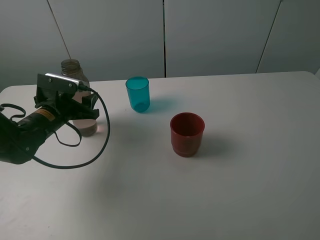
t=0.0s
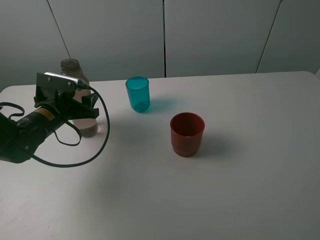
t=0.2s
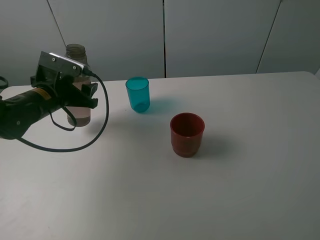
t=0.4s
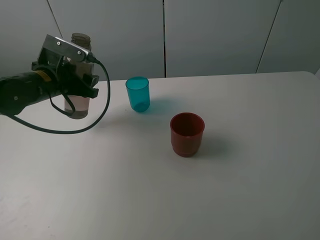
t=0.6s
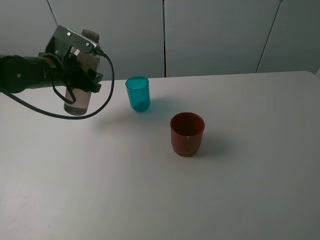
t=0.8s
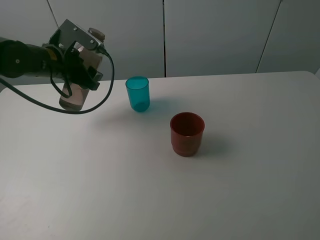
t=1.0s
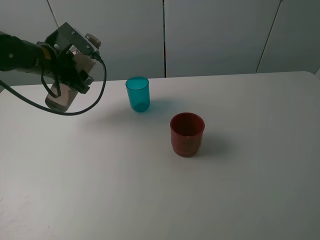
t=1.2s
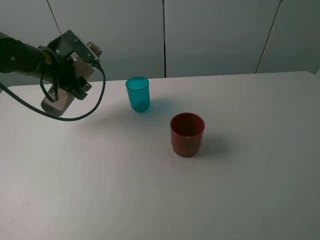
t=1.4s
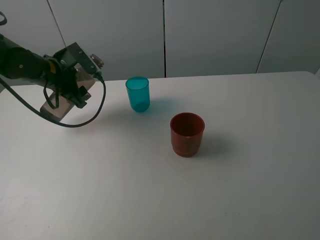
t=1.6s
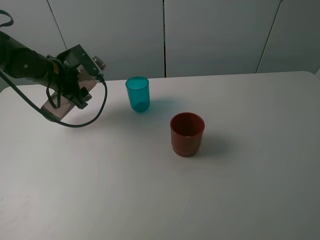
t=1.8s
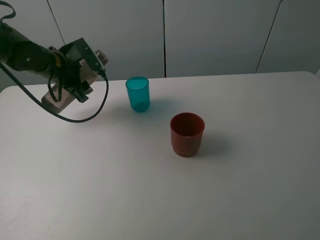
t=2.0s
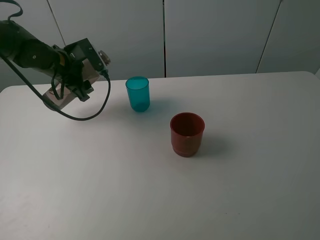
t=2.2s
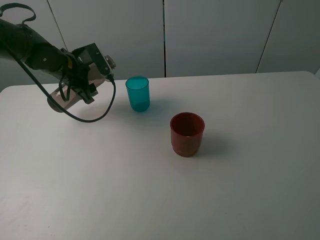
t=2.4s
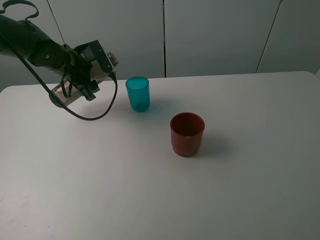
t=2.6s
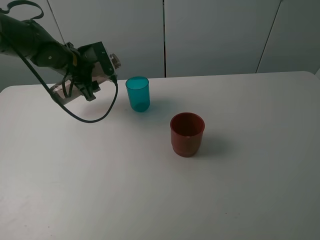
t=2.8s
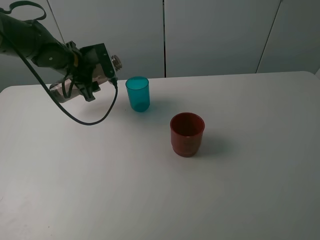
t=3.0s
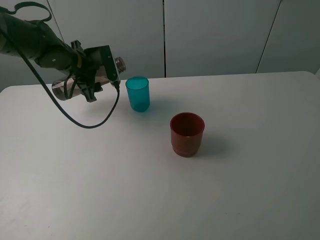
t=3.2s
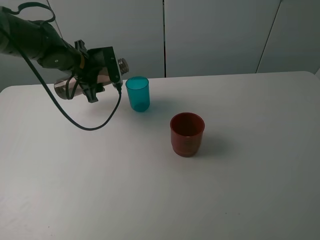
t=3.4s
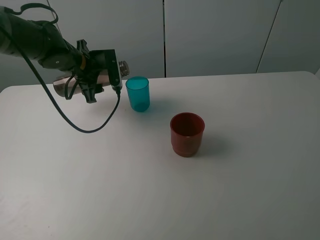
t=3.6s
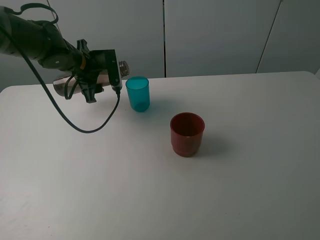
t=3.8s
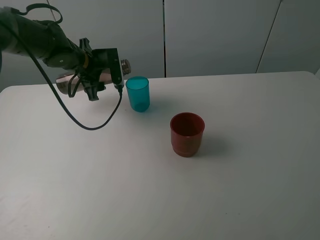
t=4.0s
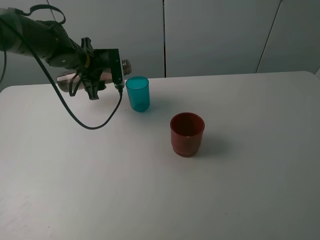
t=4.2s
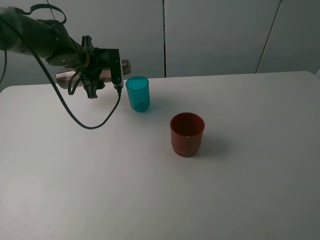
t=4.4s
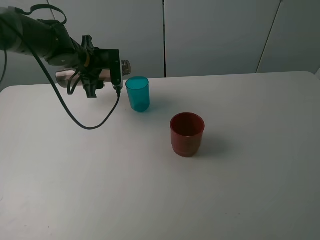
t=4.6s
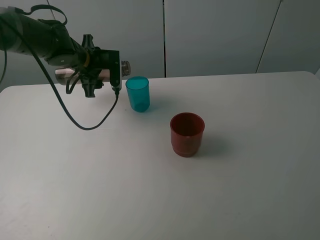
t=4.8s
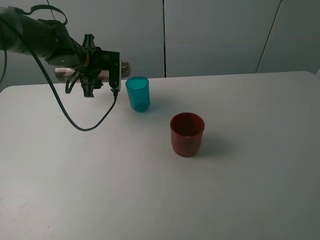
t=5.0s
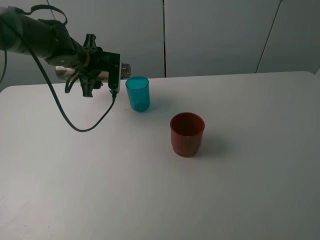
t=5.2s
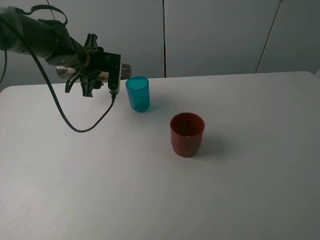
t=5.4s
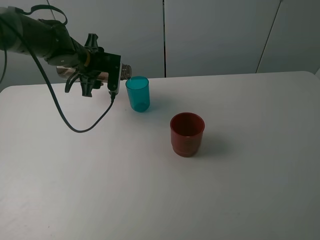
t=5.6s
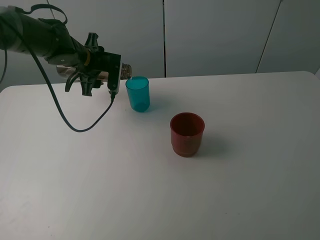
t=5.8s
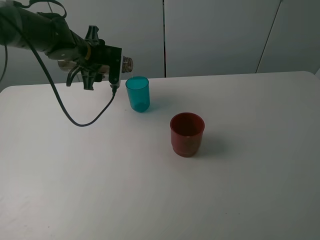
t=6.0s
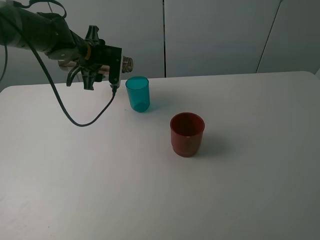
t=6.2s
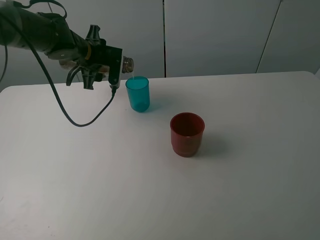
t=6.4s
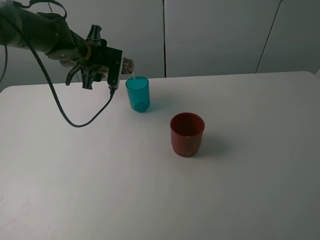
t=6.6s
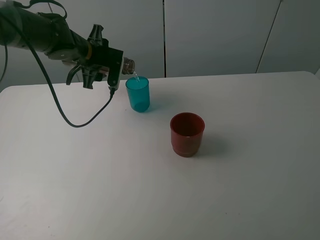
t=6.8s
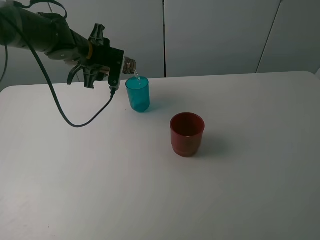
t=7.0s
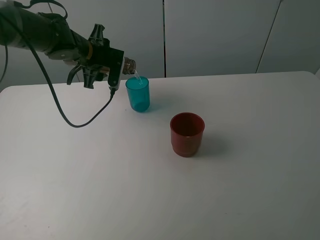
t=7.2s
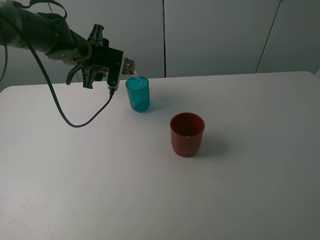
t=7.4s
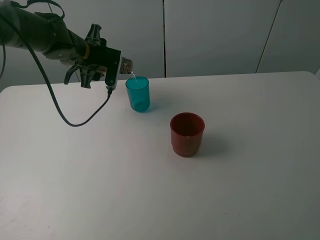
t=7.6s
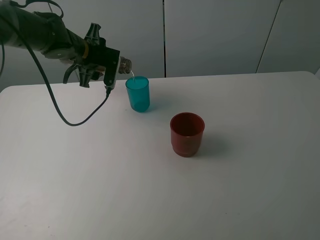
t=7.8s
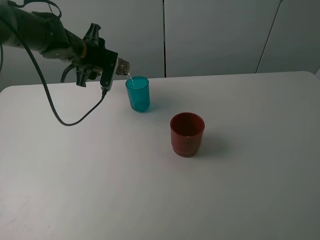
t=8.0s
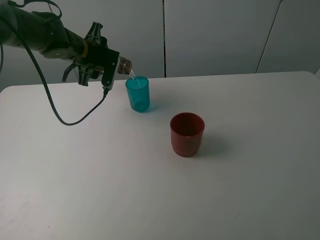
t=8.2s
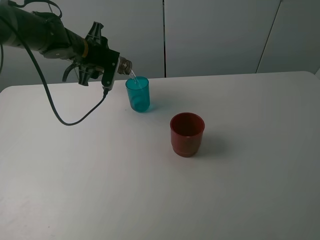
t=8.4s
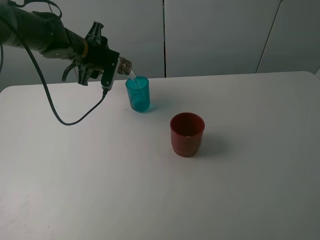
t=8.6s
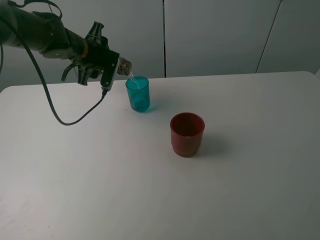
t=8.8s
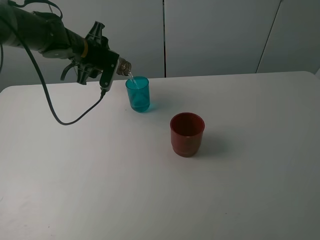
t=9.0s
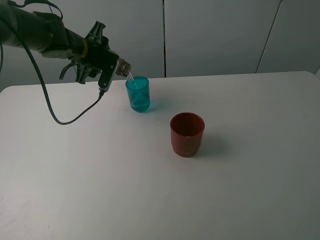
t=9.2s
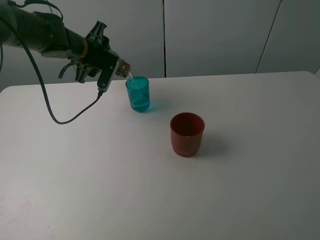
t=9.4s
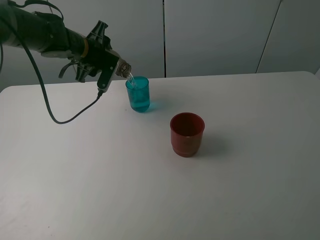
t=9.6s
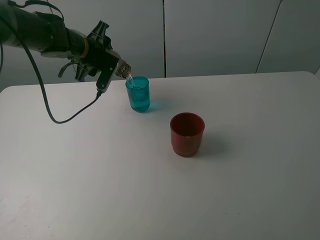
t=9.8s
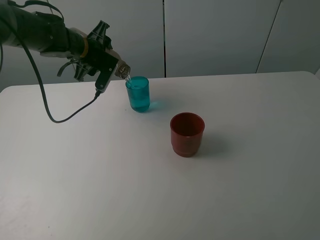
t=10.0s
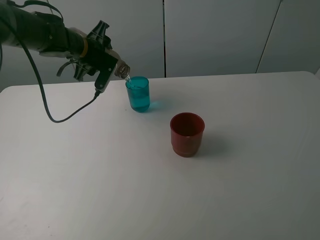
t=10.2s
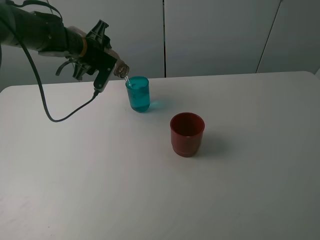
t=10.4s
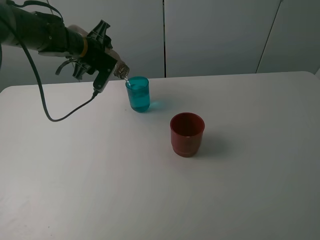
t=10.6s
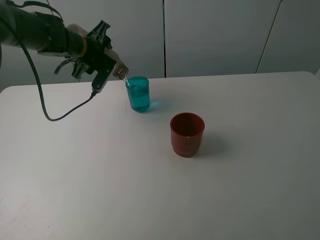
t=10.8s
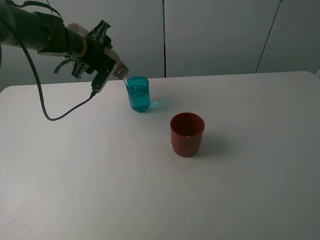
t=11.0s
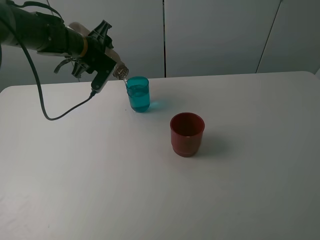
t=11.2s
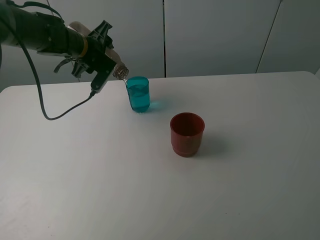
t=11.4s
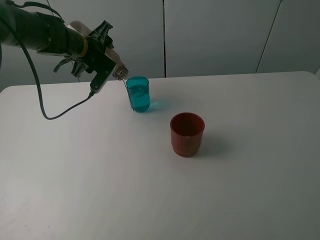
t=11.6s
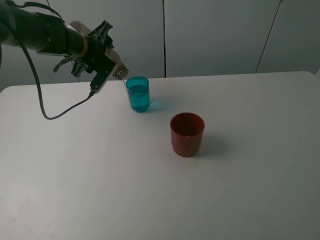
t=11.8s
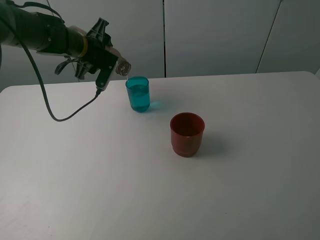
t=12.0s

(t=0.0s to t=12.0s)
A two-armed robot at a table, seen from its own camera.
Task of the whole recording: pick up the bottle and pour water into the cup, then pick up the cup containing water and pour it into another cup.
t=0.0s - t=1.6s: The left gripper moves forward and upward, roughly 10 cm.
t=1.6s - t=3.0s: The left gripper changes place by approximately 5 cm.
t=3.0s - t=4.4s: The grippers stay close to where they were, moving slightly.
t=4.4s - t=7.6s: The grippers make only small movements.
t=7.6s - t=9.0s: The grippers make only small movements.
t=9.0s - t=12.0s: The grippers move only a little.

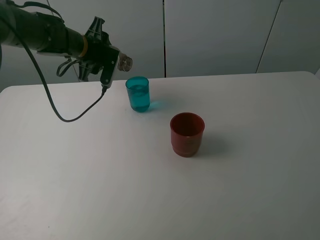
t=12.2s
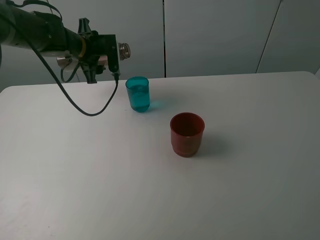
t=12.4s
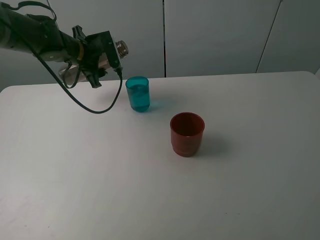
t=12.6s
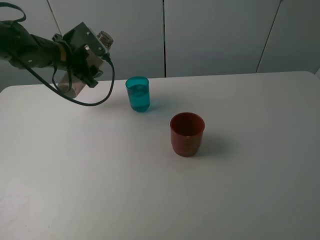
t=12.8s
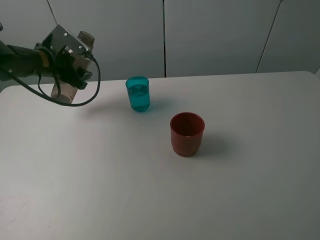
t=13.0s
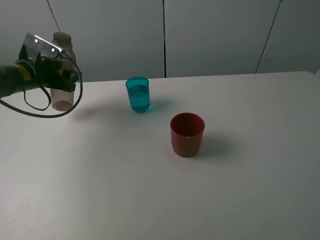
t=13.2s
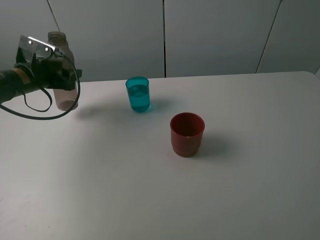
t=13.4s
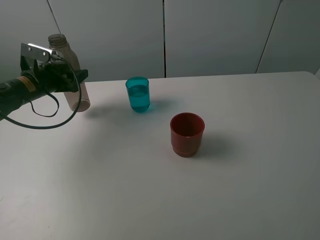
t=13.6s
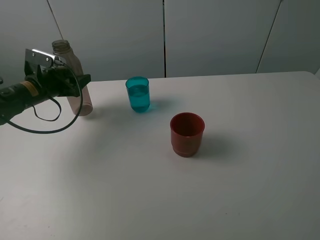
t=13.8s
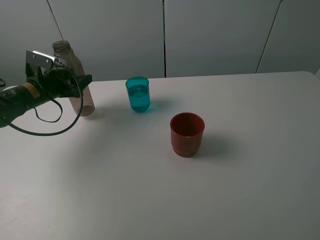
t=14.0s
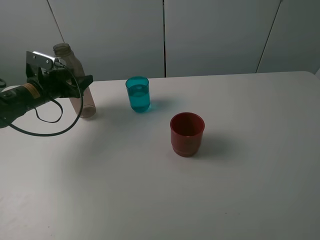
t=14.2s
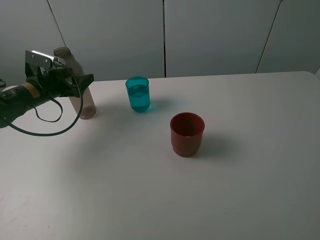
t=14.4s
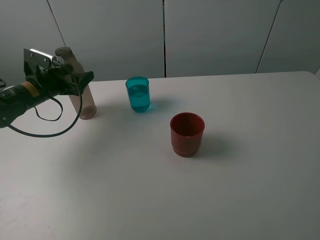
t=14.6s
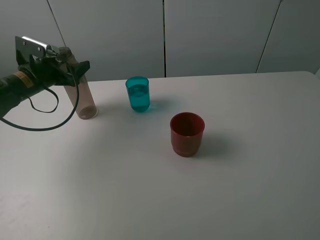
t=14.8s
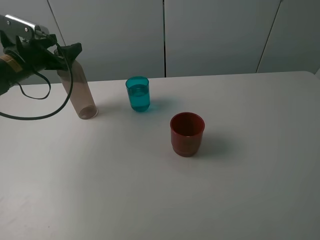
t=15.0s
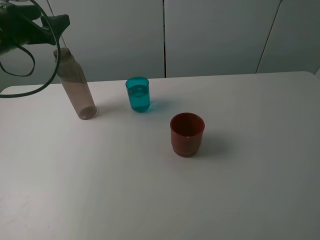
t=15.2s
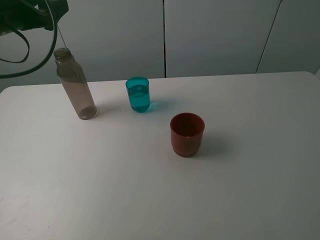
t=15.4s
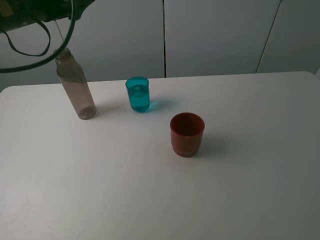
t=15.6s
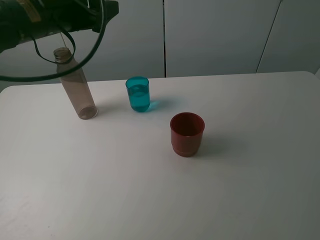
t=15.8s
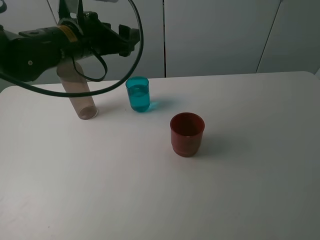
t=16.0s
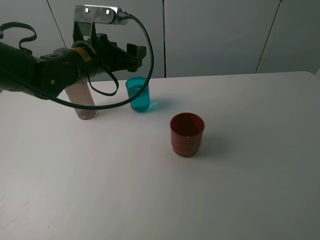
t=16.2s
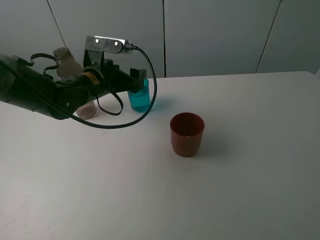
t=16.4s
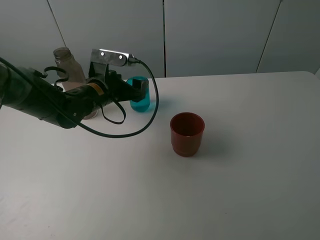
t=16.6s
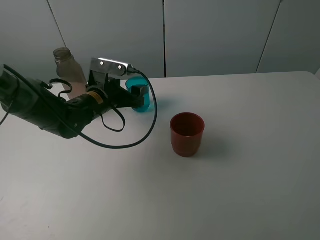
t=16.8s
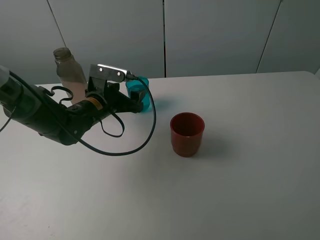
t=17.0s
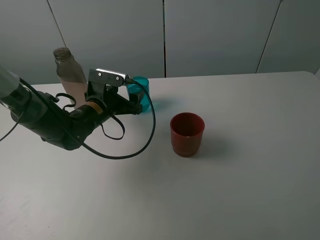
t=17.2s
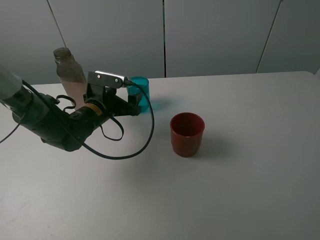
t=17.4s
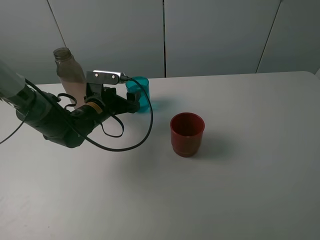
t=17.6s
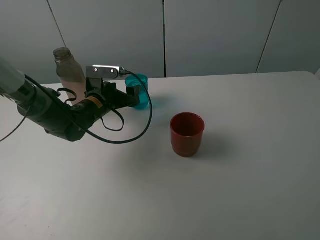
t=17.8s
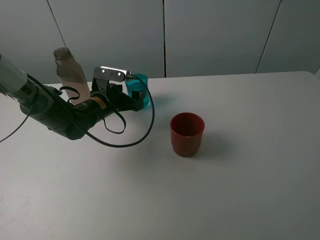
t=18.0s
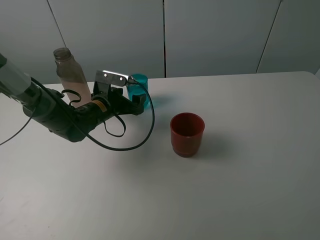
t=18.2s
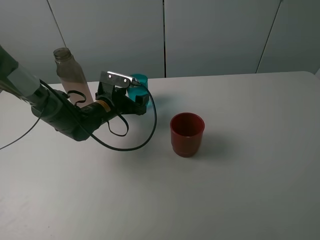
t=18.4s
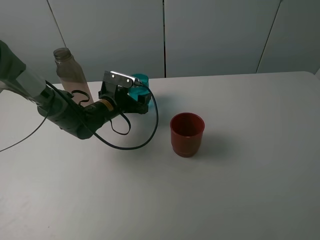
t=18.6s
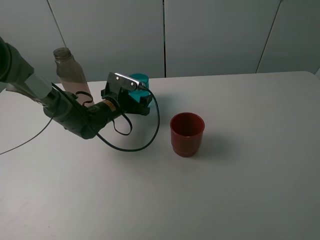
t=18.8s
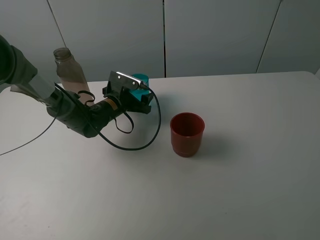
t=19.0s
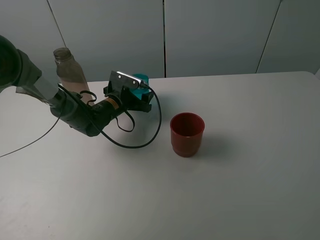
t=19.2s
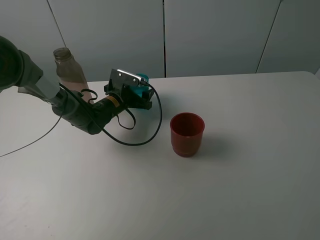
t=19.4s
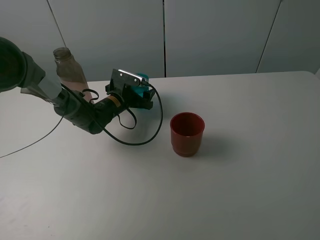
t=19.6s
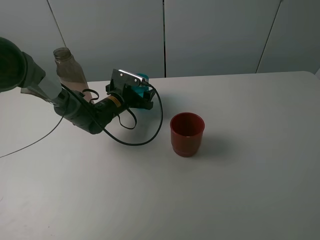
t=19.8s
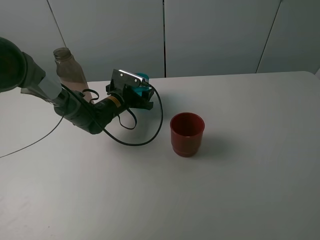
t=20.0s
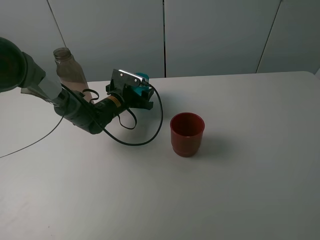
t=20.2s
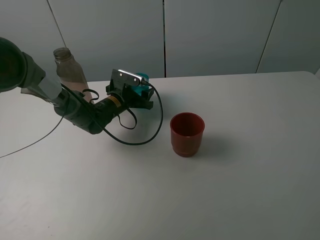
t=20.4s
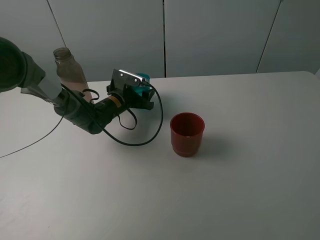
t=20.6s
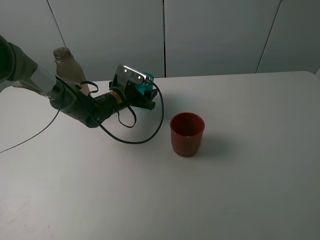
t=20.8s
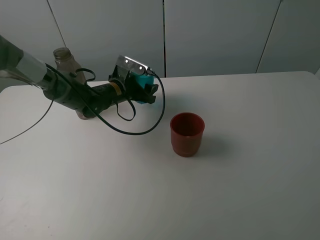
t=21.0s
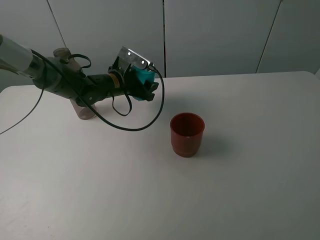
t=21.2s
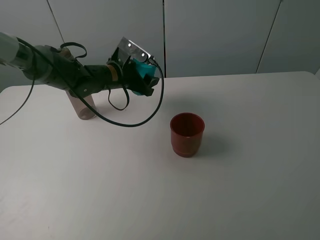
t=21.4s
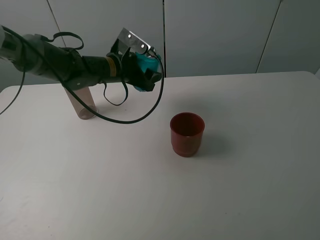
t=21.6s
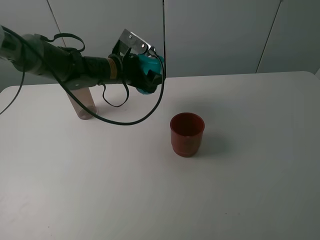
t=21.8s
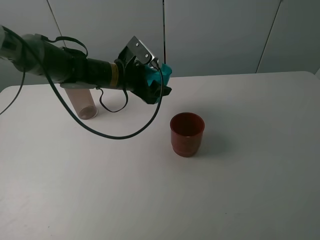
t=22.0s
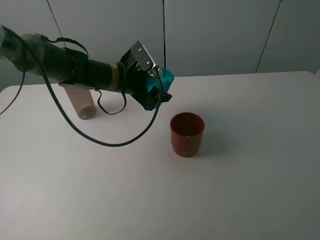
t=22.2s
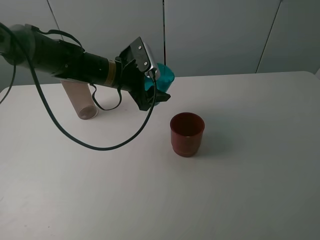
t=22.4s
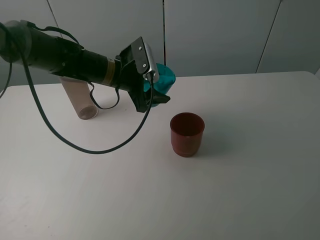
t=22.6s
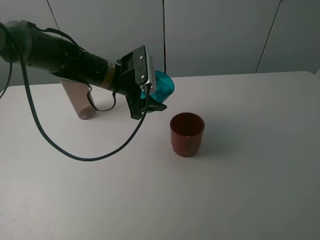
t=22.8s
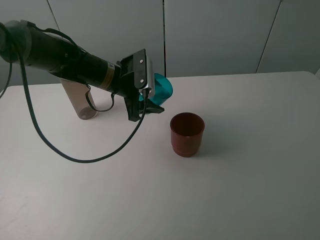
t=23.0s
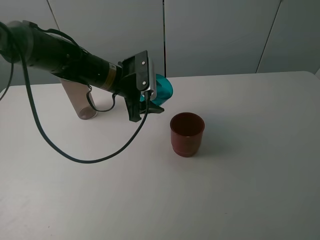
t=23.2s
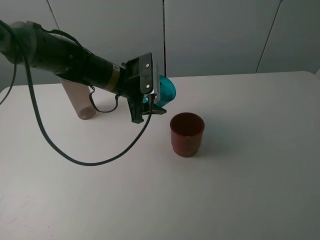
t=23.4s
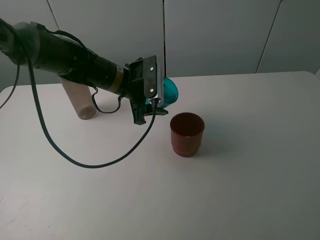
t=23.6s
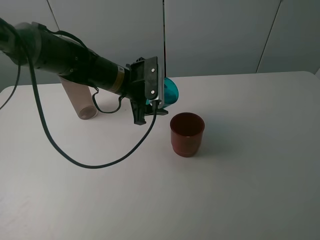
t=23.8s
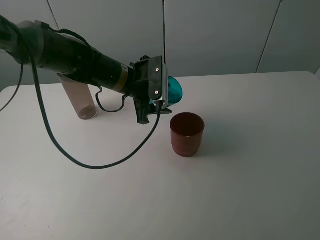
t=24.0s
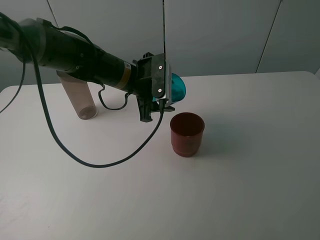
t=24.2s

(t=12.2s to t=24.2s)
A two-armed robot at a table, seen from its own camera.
Task of the whole recording: pick up the bottle and pour water into the cup, then pick up the cup containing water and pour it into another cup.
t=12.2s - t=13.8s: The left gripper shifts some 15 cm to the left, downward and backward.
t=13.8s - t=15.2s: The left gripper goes approximately 15 cm upward, and opens.
t=15.2s - t=16.6s: The left gripper goes some 20 cm to the right and downward.
t=16.6s - t=18.2s: The left gripper is displaced downward by about 5 cm.
t=18.2s - t=19.8s: The left gripper moves forward, roughly 5 cm.
t=19.8s - t=21.2s: The left gripper heads upward, covering approximately 10 cm, and closes its fingers.
t=21.2s - t=22.6s: The left gripper goes roughly 5 cm upward.
t=22.6s - t=24.2s: The grippers make only small movements.
